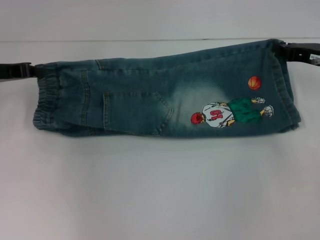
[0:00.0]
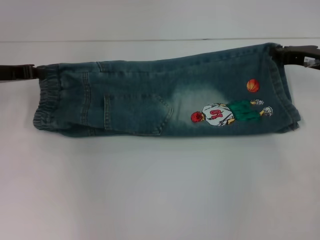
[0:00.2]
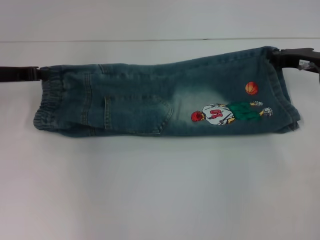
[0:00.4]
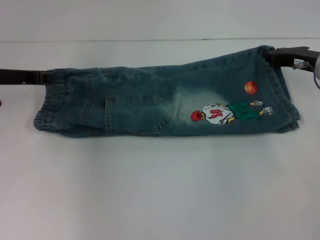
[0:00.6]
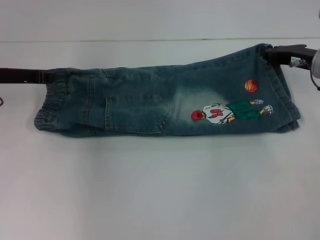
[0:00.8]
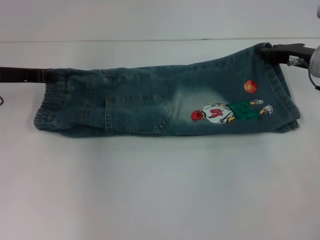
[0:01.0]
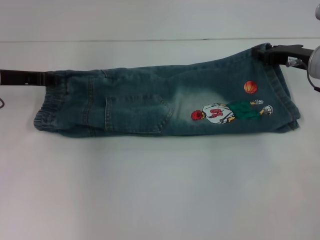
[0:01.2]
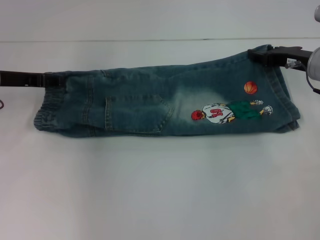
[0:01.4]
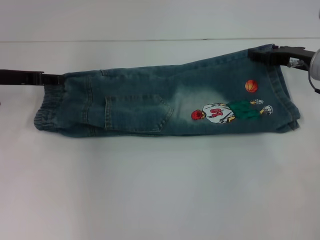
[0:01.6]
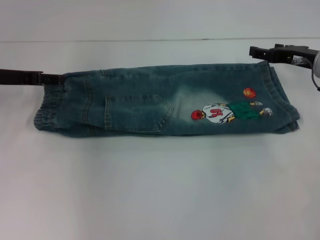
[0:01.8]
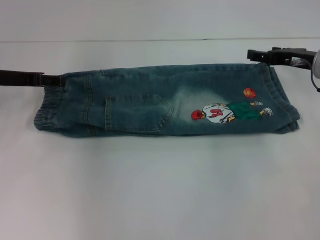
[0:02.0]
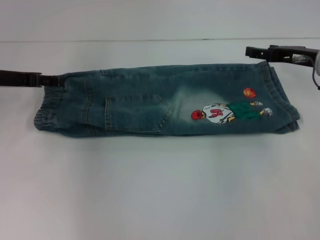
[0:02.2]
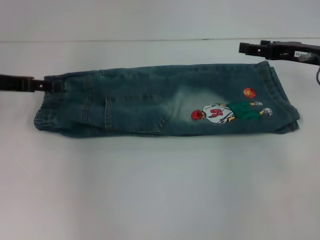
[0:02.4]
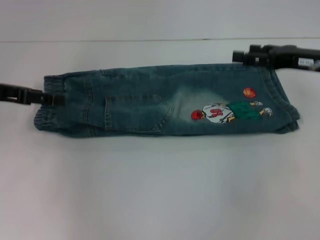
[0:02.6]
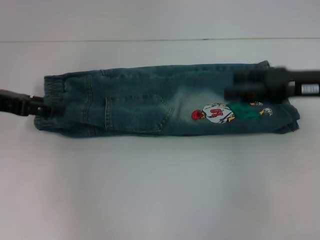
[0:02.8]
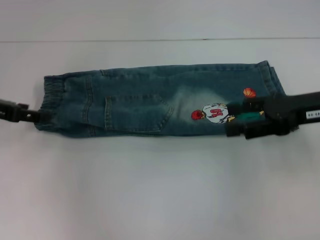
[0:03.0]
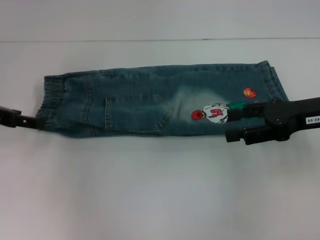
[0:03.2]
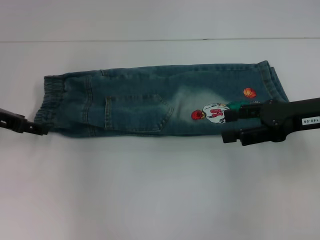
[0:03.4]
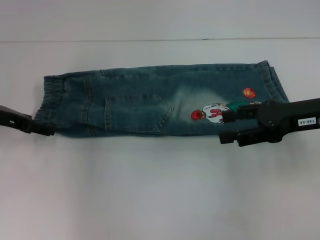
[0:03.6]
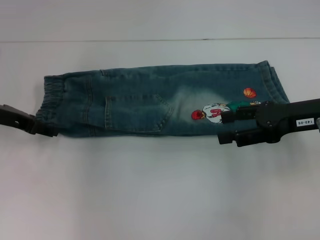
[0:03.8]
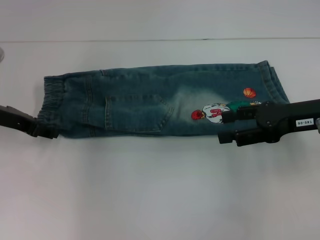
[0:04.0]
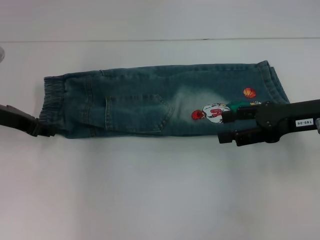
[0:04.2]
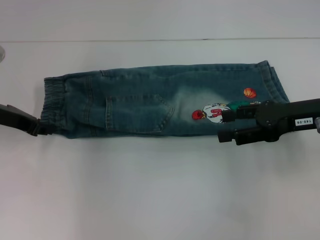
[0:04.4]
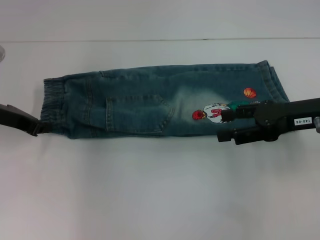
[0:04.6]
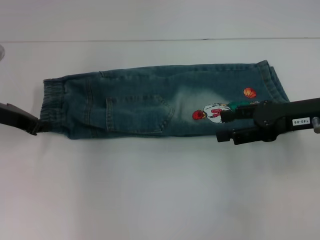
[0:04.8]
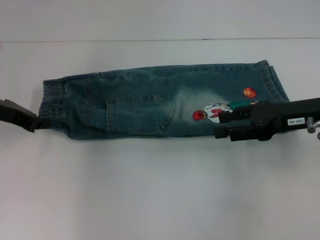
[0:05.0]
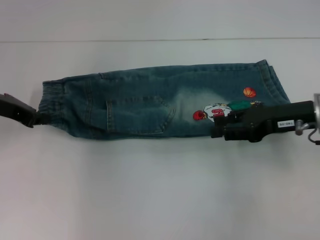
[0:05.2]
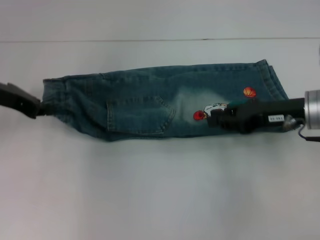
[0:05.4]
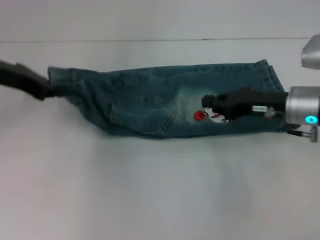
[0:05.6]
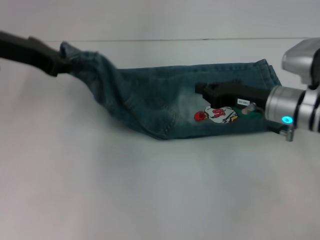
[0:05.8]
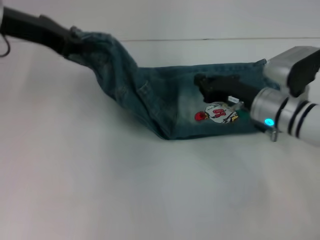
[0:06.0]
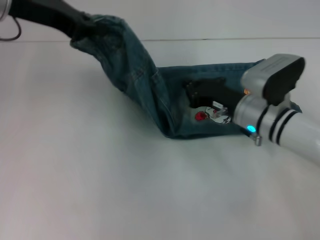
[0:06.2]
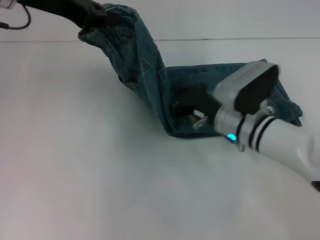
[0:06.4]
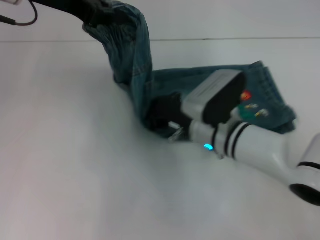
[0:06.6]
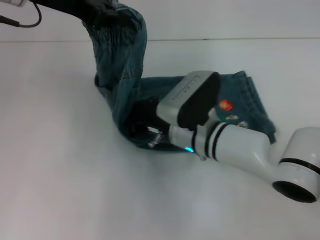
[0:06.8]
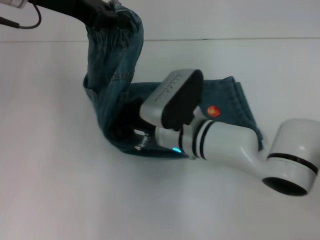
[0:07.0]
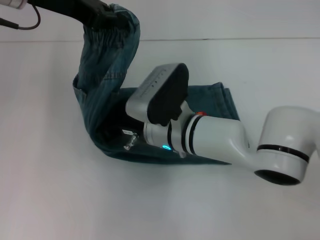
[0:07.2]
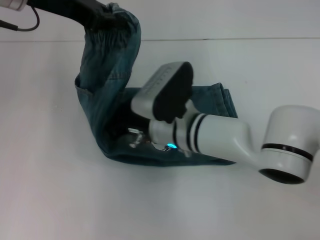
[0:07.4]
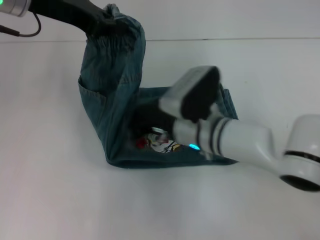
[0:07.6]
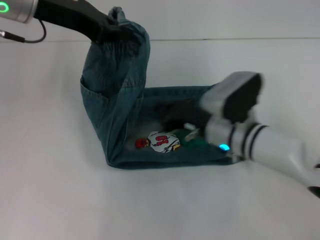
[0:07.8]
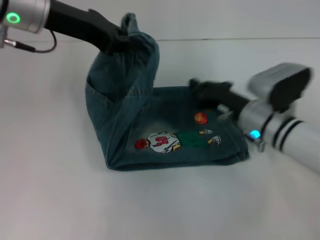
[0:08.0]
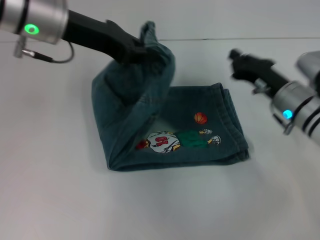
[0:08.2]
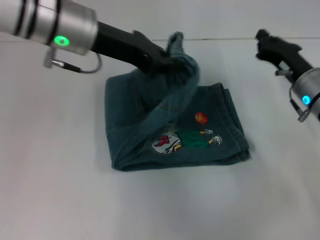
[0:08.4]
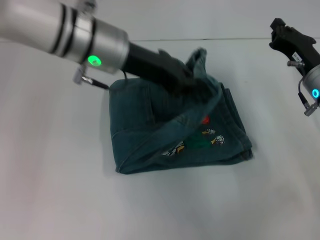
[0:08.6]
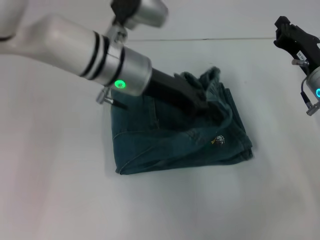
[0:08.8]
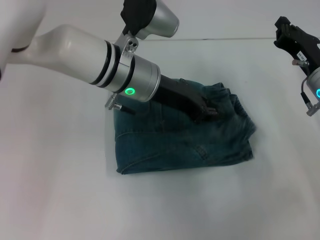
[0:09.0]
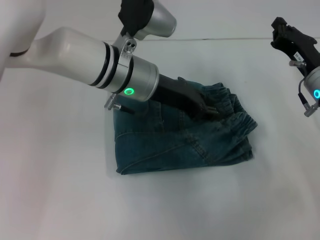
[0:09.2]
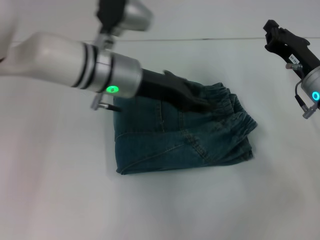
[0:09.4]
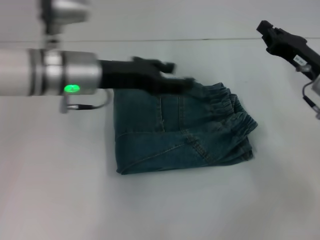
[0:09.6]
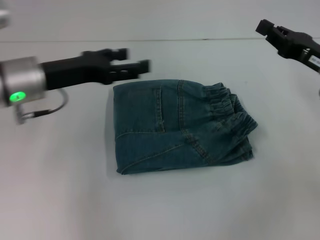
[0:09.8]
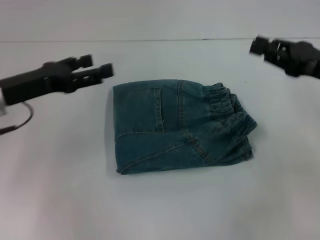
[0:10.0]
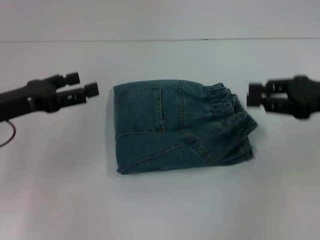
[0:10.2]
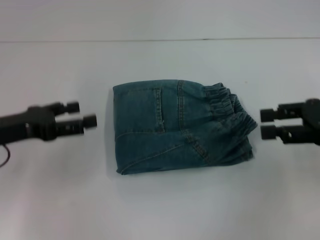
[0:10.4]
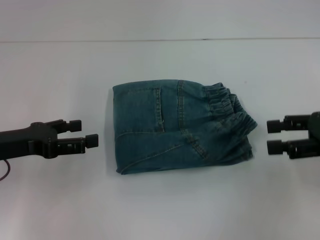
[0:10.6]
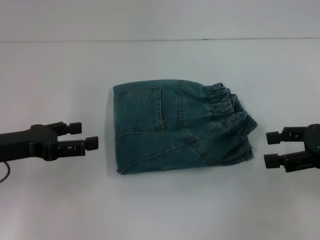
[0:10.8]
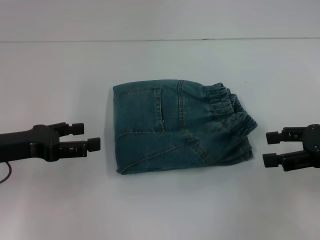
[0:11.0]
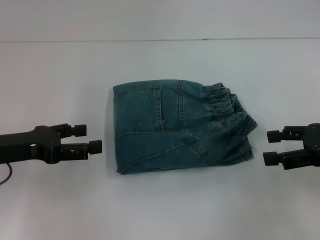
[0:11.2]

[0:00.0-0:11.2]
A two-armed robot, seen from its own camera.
Step, 0:00.0 to 0:02.0: Fold upward with your right hand.
Step, 0:02.2 to 0:05.2: Hold the waistband with your left hand.
Step, 0:05.4 to 0:07.6: Press the middle of the pants with your right hand.
Step, 0:08.0 to 0:09.4: Fold to the right with your left hand.
0:00.0 to 0:01.6: The left gripper opens its fingers, while the right gripper opens.
0:01.6 to 0:03.2: The left gripper shifts by approximately 5 cm; the right gripper is displaced backward by approximately 10 cm, and opens.
0:03.2 to 0:04.8: The left gripper closes its fingers.
0:04.8 to 0:06.4: The left gripper goes some 15 cm upward and to the right, while the right gripper is displaced to the left and downward by approximately 15 cm, and closes up.
0:06.4 to 0:08.0: The right gripper moves about 10 cm to the left and comes back.
0:08.0 to 0:09.6: The left gripper shifts some 10 cm downward, travels to the right and back again, approximately 10 cm each way, and opens up. The right gripper moves to the right, approximately 10 cm.
0:09.6 to 0:11.2: The right gripper shifts roughly 10 cm backward and to the right, and opens its fingers; the left gripper travels to the left and backward by about 15 cm, and opens its fingers.
